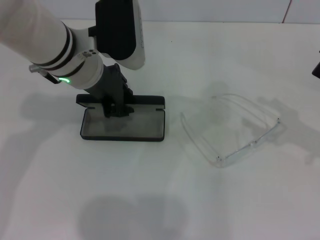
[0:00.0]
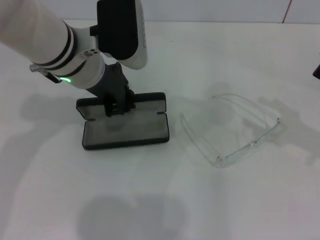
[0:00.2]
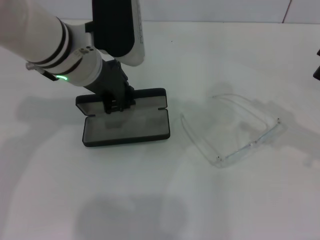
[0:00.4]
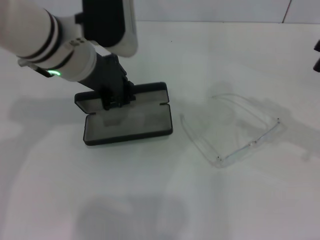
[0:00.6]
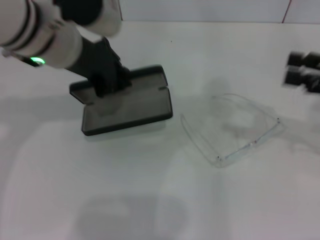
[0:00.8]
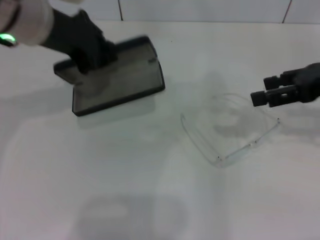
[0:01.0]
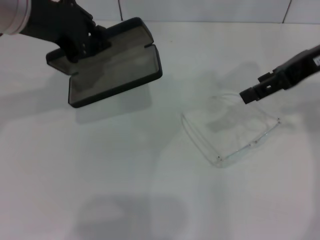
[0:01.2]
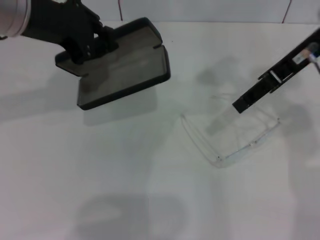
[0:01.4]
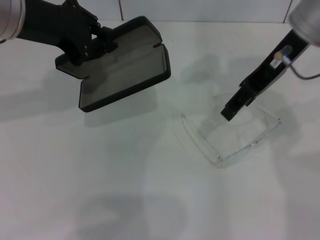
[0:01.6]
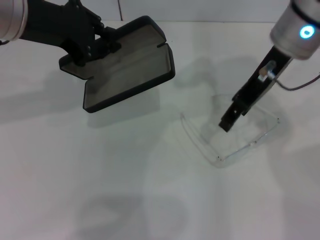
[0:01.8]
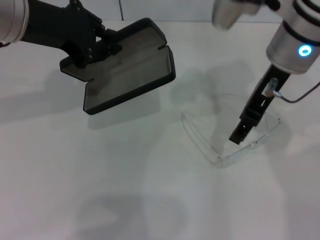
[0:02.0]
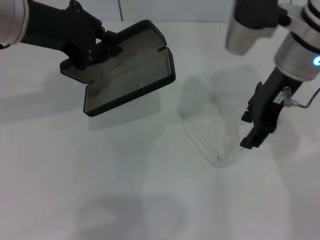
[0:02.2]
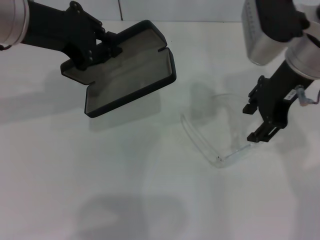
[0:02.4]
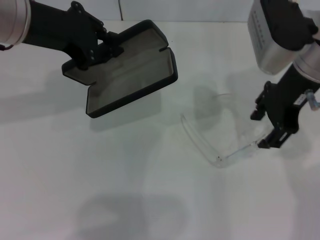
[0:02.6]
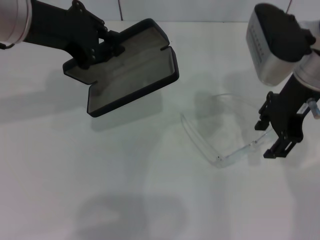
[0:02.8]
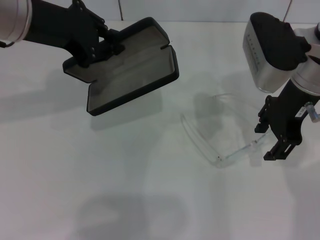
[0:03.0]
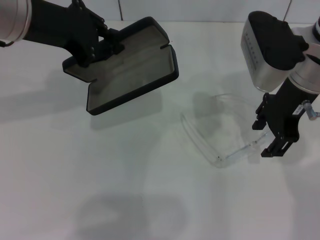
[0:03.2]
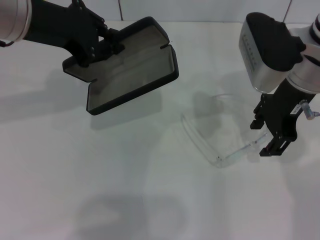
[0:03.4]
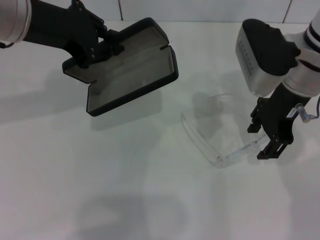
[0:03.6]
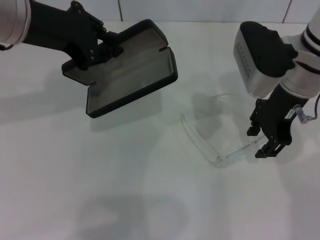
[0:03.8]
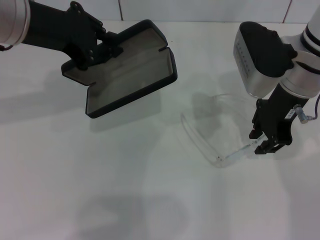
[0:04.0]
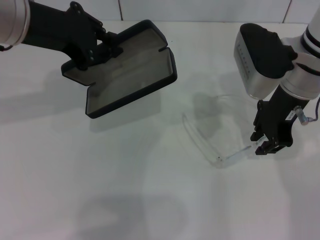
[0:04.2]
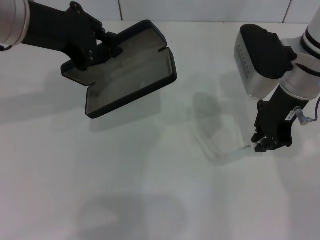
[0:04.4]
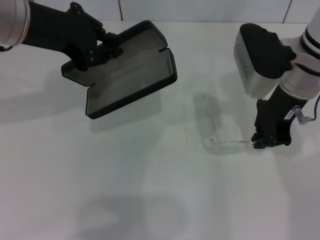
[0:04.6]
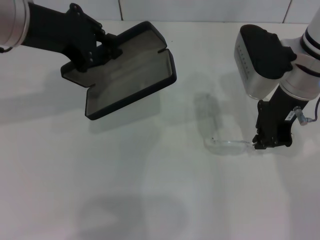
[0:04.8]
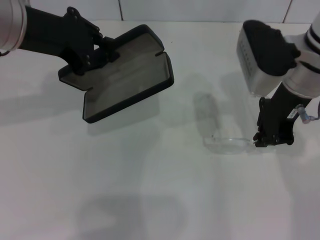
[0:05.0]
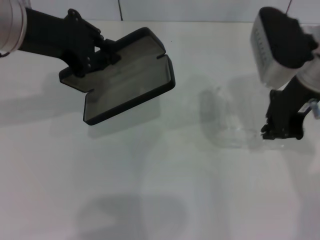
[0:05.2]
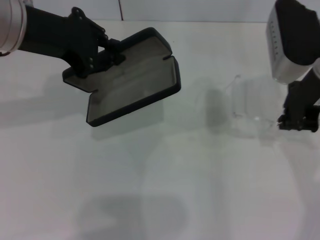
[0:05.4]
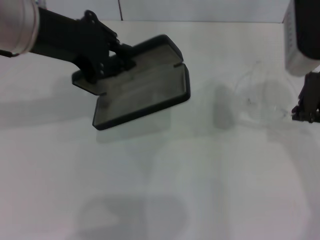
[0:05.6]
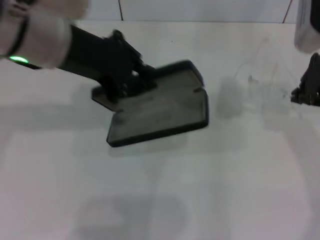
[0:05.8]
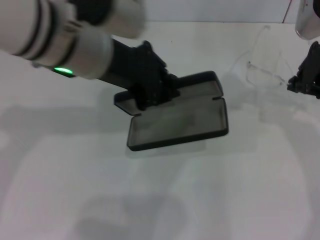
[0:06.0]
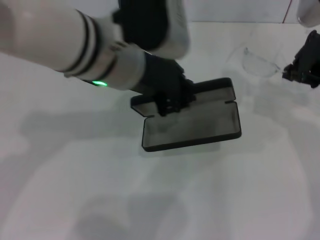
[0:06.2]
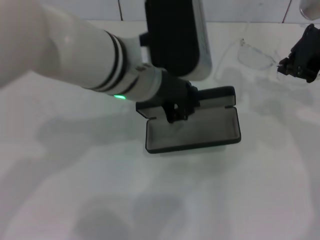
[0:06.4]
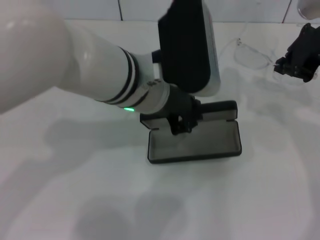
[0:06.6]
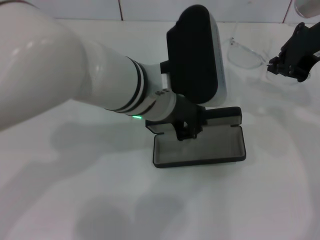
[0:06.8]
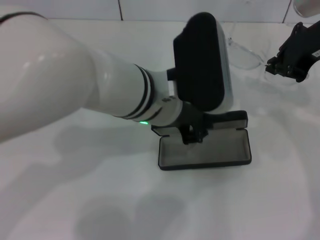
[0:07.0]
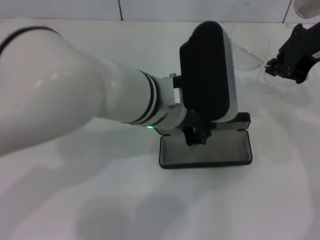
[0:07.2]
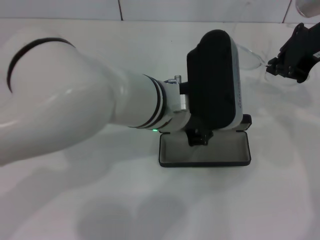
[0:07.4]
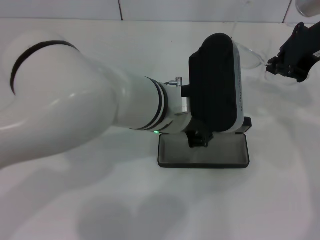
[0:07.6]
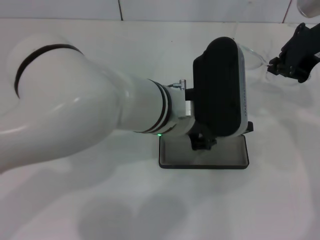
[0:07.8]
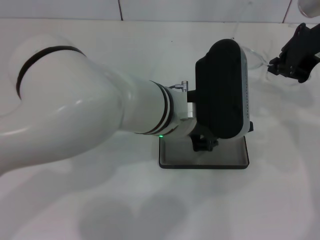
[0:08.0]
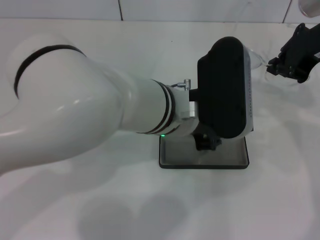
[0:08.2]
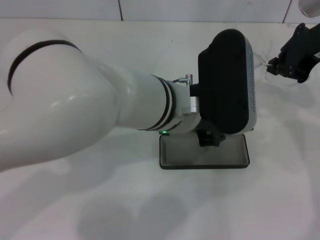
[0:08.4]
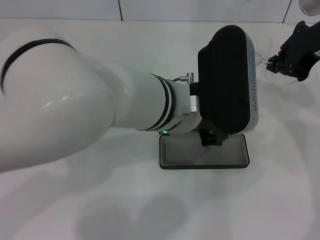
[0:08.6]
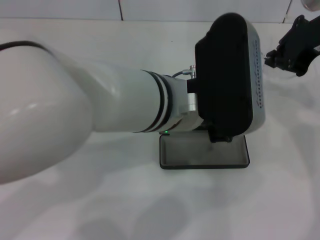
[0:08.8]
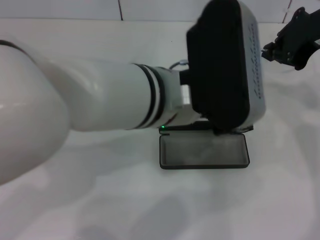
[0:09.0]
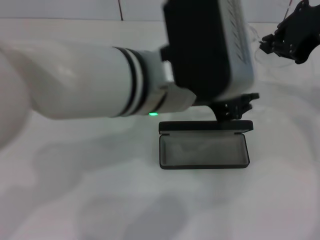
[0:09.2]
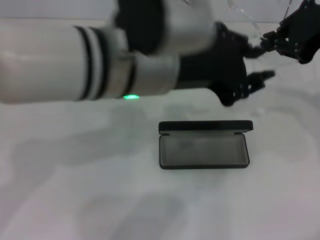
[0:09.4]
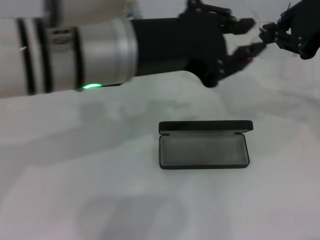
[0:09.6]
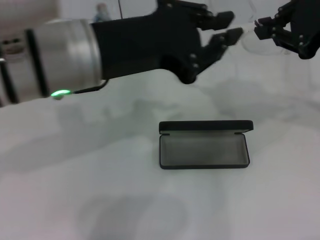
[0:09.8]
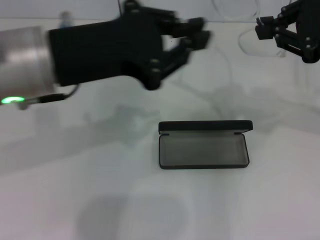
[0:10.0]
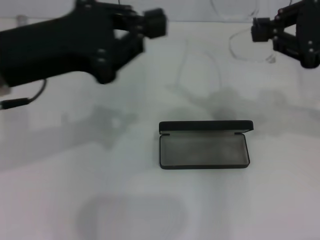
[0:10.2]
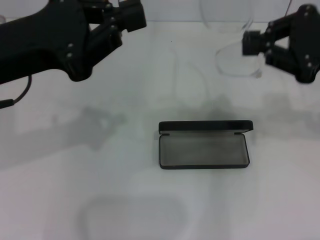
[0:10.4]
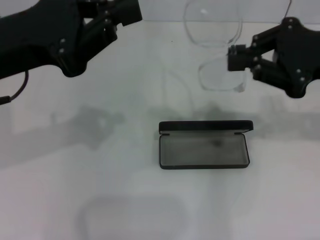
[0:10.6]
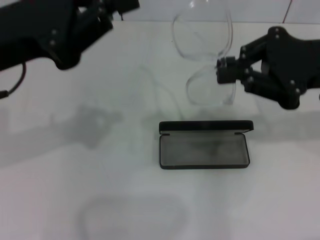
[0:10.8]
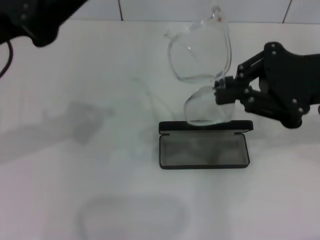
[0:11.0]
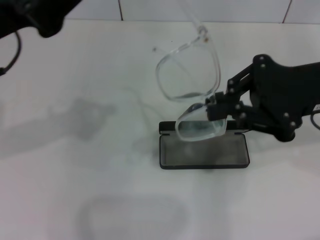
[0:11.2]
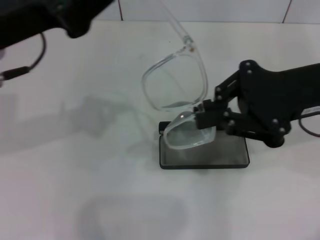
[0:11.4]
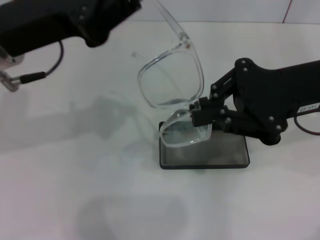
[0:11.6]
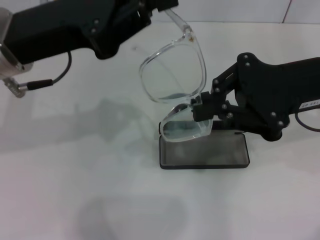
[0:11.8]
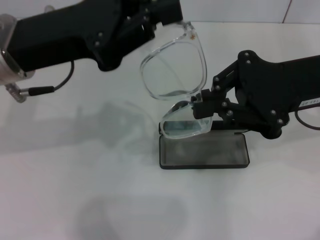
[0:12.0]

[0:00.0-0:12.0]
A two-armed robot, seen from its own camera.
Step, 0:00.4 to 0:04.6: Grab the eyeglass frame with your right hand.
Step, 0:04.8 to 0:08.0: Place the glasses case in the center of the table with your left hand.
0:00.0 to 0:01.6: The left gripper travels upward and to the left by about 10 cm; the right gripper moves to the left, upward and forward, about 25 cm.
0:01.6 to 0:03.0: The right gripper travels downward by approximately 5 cm.
0:03.0 to 0:04.4: The right gripper closes up.
0:04.4 to 0:06.0: The right gripper moves upward and to the right, approximately 10 cm. The left gripper goes approximately 10 cm to the right.
0:06.0 to 0:07.6: The left gripper goes some 10 cm to the right and downward.
0:07.6 to 0:09.0: The left gripper is displaced upward by some 5 cm.
0:09.0 to 0:10.4: The left gripper heads to the left, covering approximately 20 cm, while the right gripper is displaced backward by approximately 5 cm.
0:10.4 to 0:12.0: The right gripper goes some 5 cm to the left.

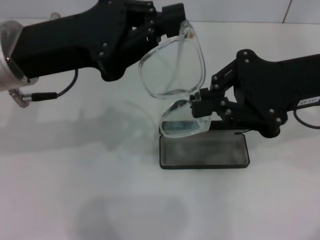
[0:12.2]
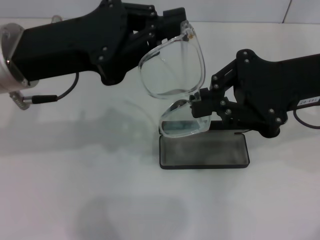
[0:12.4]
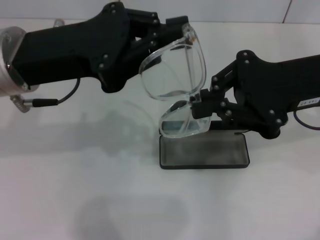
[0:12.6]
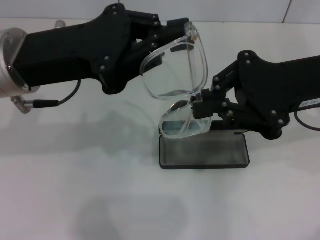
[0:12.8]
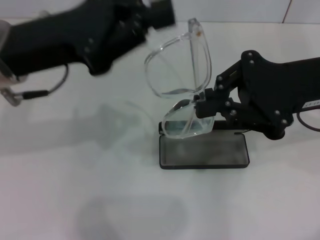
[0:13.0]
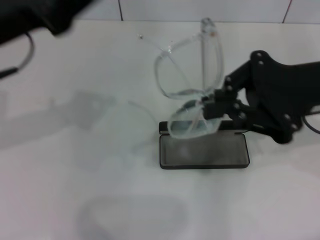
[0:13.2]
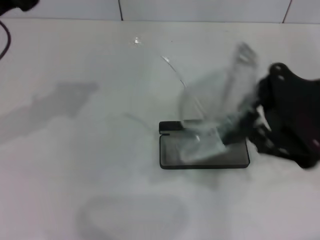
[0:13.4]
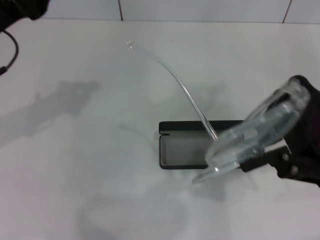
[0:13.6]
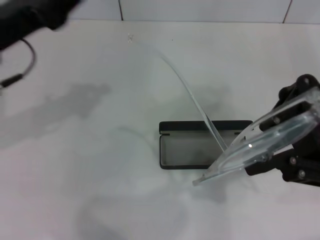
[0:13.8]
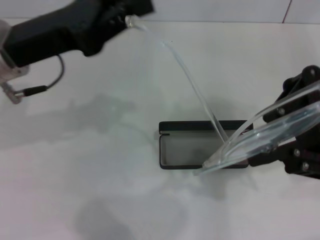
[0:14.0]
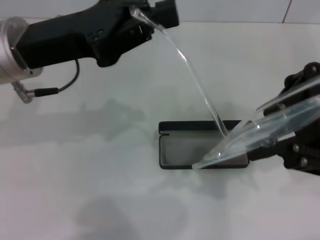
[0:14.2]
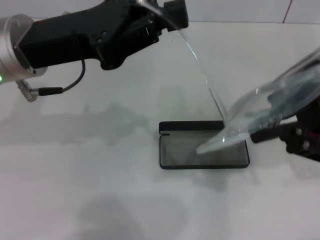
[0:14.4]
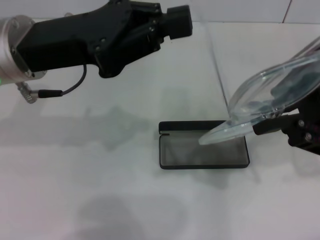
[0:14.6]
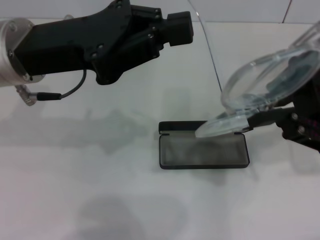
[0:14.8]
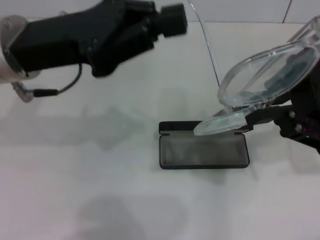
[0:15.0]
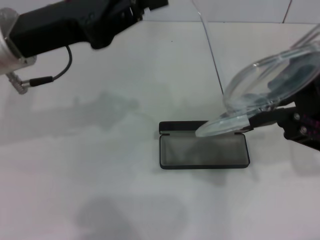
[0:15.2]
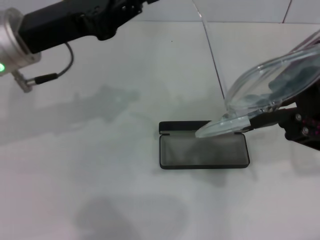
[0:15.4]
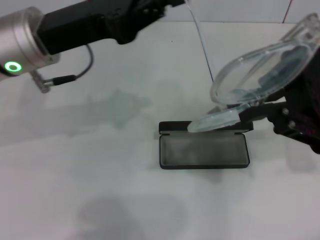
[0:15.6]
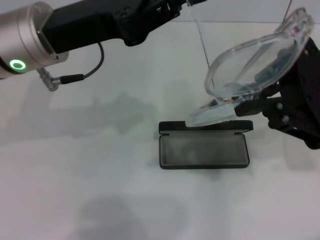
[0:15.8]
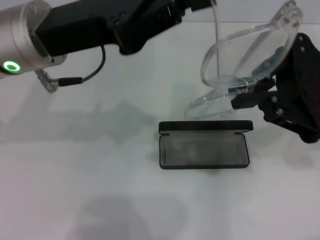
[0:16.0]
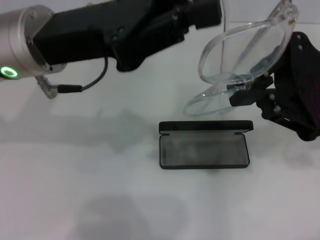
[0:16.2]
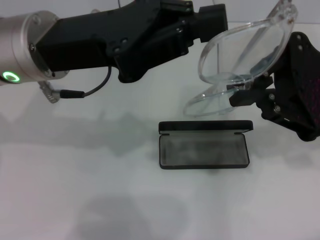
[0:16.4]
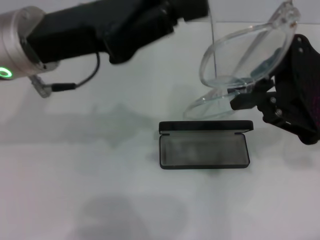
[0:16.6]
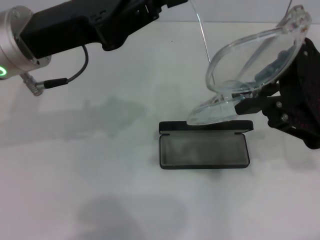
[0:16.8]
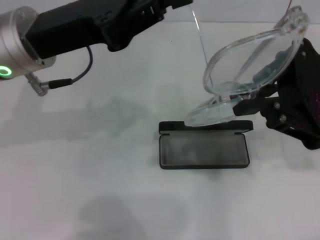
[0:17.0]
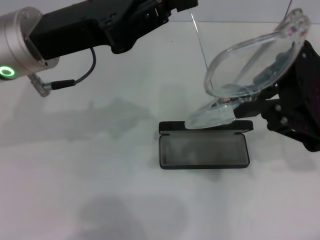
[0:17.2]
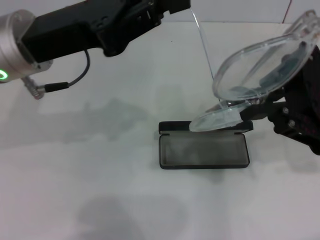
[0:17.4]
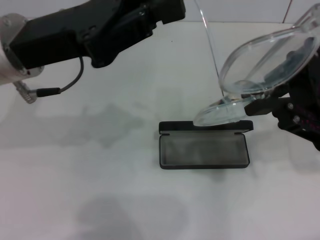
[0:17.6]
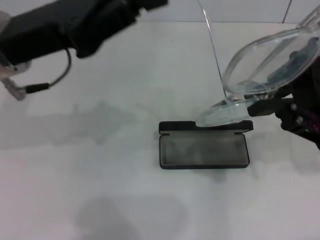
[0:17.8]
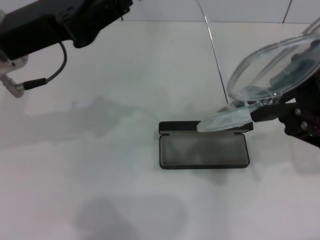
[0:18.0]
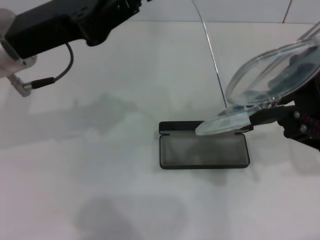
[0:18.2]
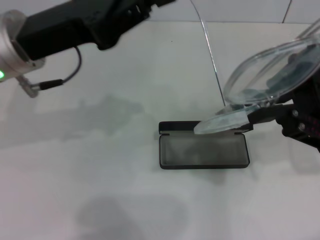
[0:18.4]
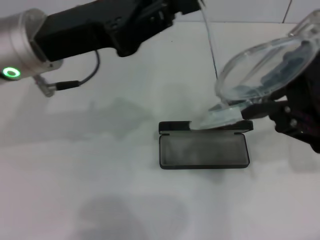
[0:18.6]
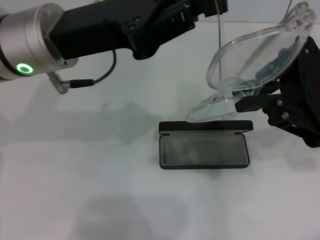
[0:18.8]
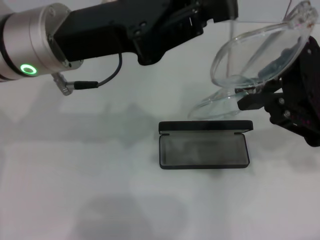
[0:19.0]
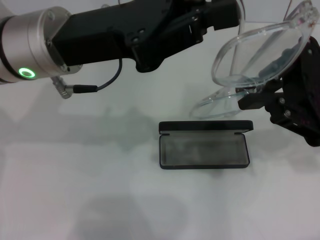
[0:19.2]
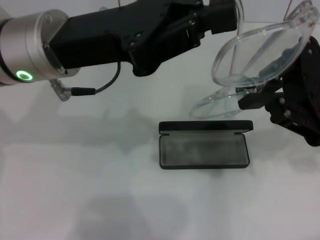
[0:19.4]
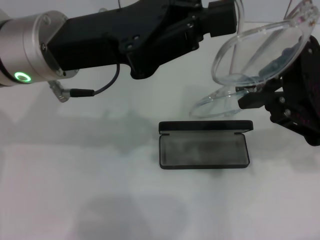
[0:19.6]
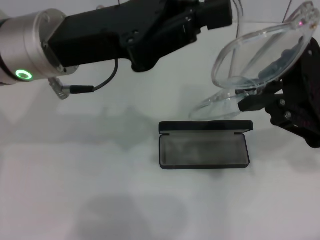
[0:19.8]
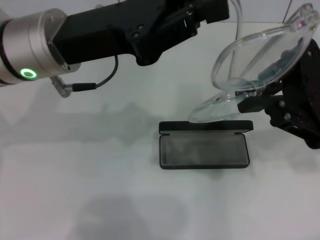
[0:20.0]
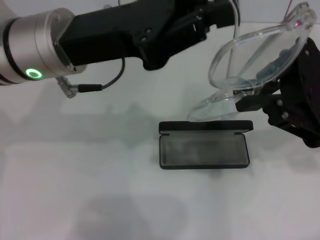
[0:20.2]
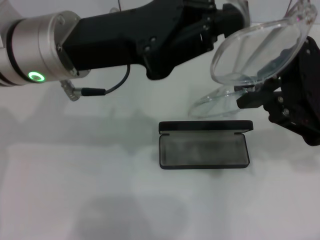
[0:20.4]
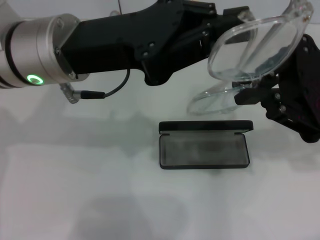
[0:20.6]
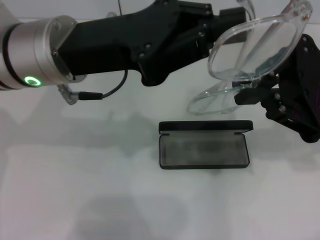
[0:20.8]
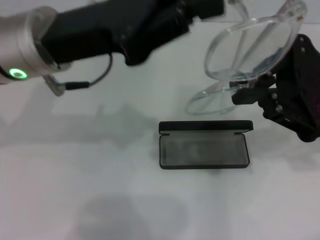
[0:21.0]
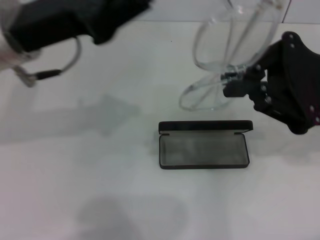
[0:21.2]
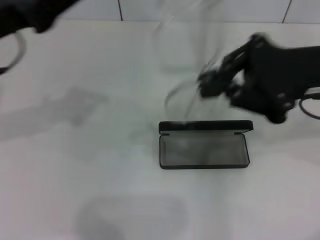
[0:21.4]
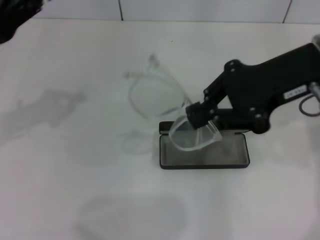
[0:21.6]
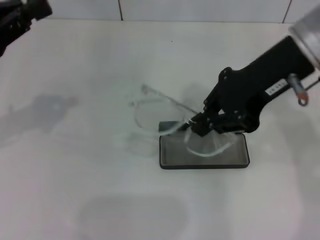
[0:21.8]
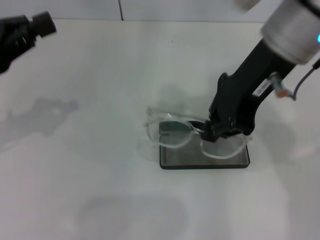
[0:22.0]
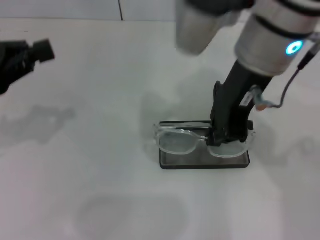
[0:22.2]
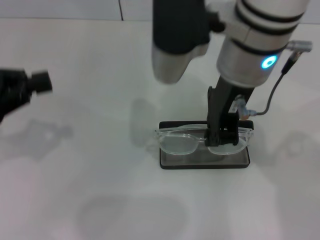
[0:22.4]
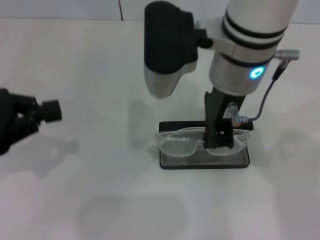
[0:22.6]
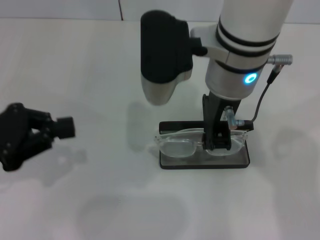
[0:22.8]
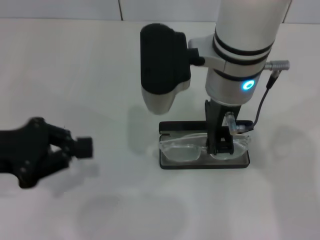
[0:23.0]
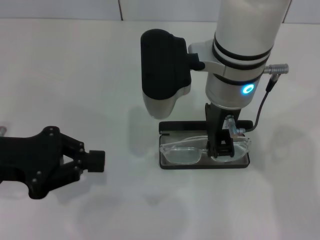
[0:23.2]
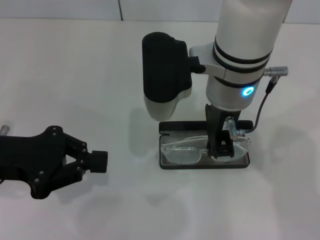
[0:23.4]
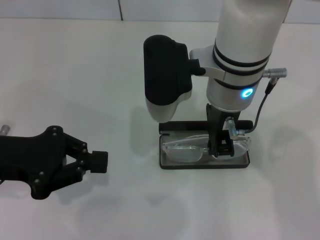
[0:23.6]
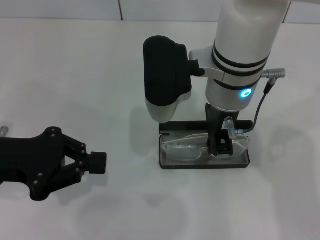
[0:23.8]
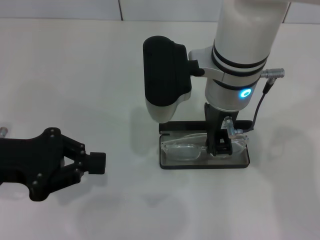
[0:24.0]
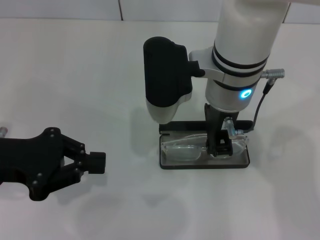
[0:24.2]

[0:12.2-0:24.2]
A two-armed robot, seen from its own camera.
Step, 0:12.2 to 0:20.6: Lift the glasses with your right hand.
0:12.2 to 0:13.8: The left gripper heads to the left, covering some 5 cm.
0:21.2 to 0:22.6: The left gripper travels to the left and backward by approximately 15 cm; the right gripper shifts roughly 20 cm to the left.
